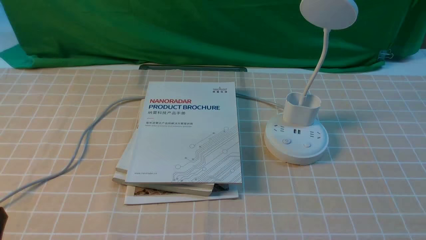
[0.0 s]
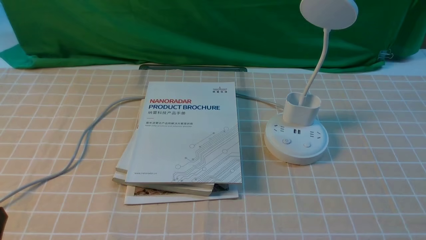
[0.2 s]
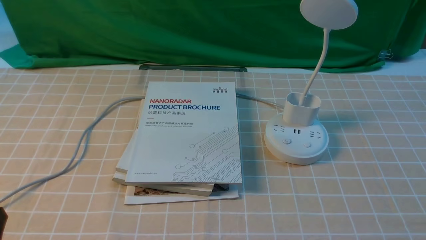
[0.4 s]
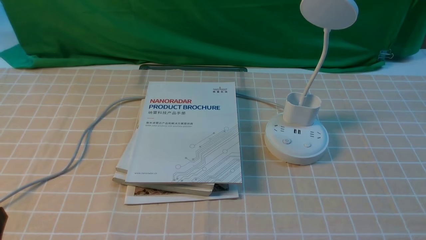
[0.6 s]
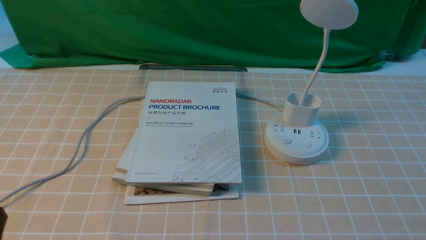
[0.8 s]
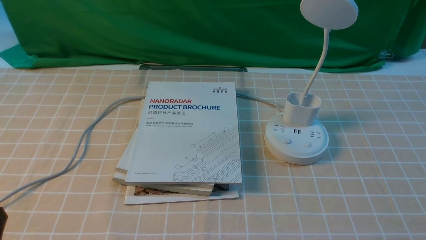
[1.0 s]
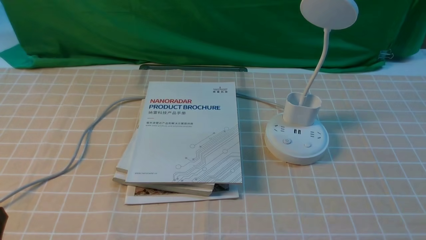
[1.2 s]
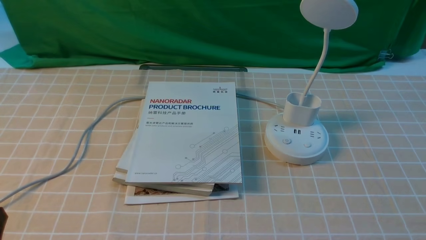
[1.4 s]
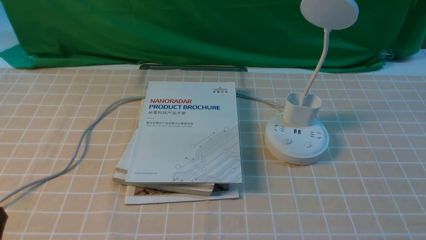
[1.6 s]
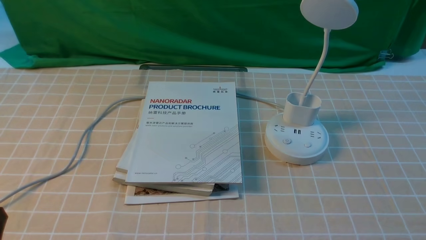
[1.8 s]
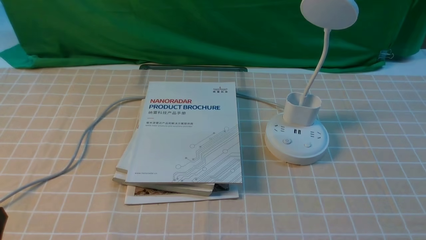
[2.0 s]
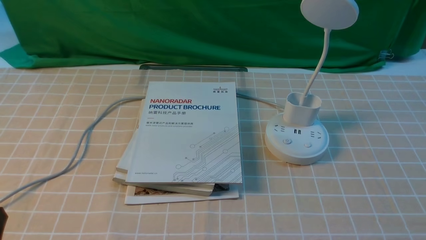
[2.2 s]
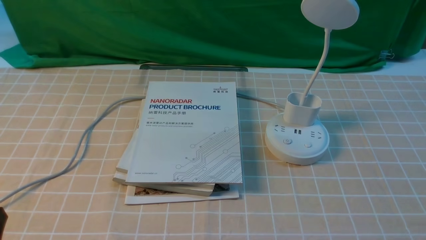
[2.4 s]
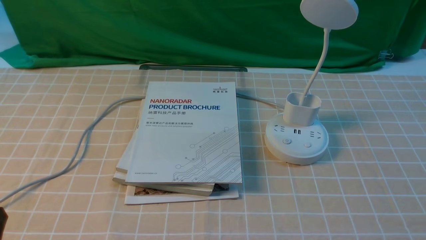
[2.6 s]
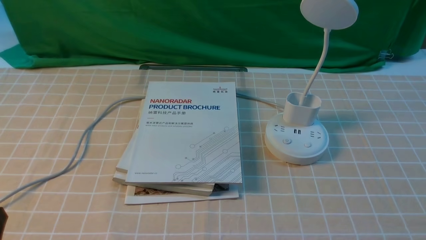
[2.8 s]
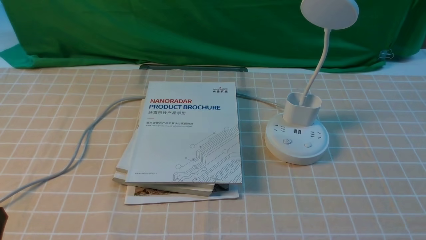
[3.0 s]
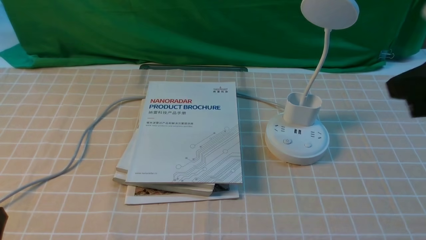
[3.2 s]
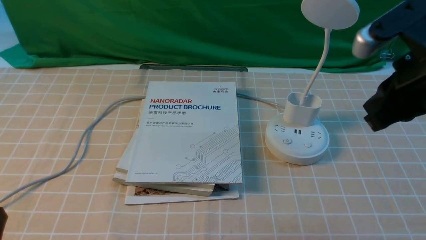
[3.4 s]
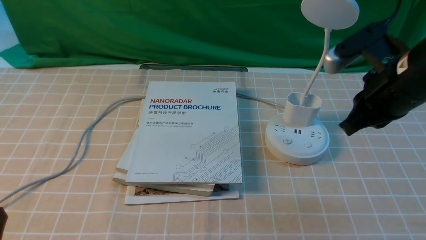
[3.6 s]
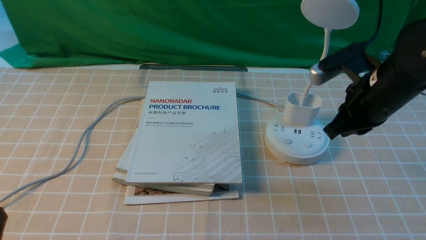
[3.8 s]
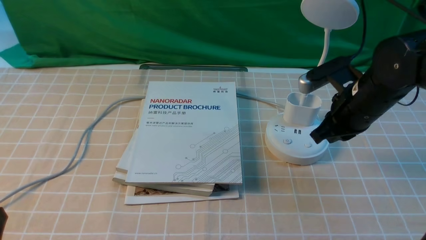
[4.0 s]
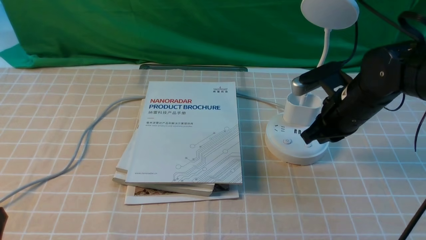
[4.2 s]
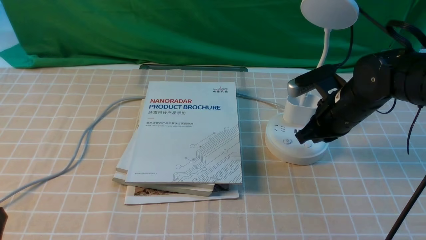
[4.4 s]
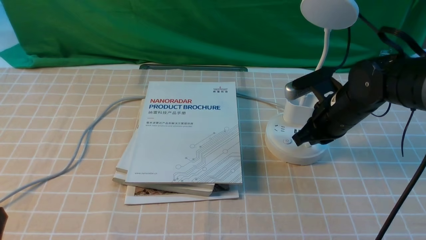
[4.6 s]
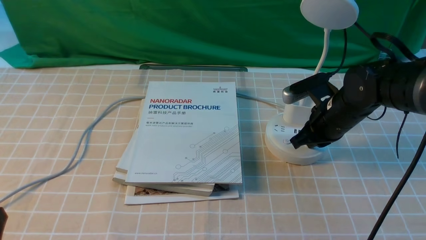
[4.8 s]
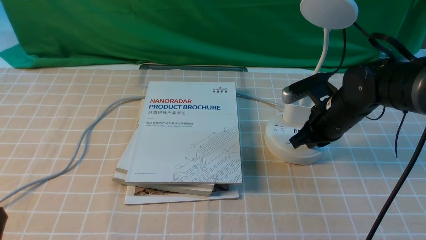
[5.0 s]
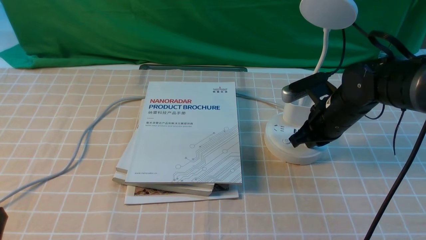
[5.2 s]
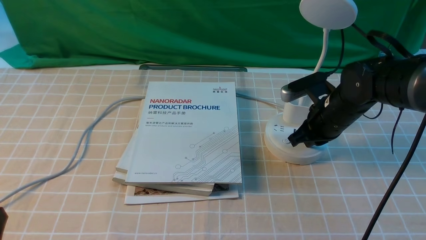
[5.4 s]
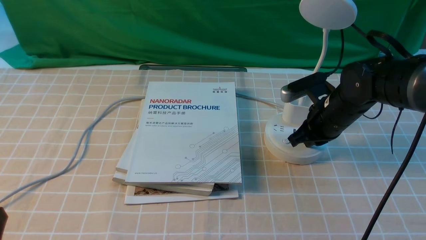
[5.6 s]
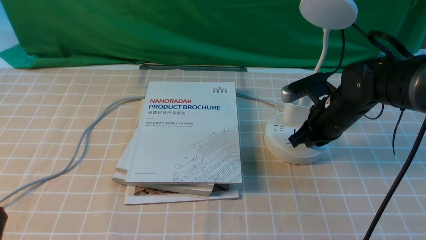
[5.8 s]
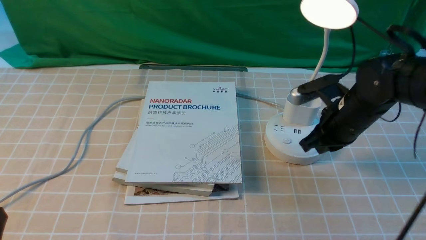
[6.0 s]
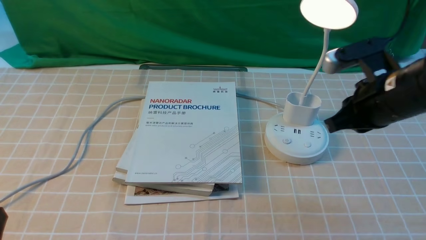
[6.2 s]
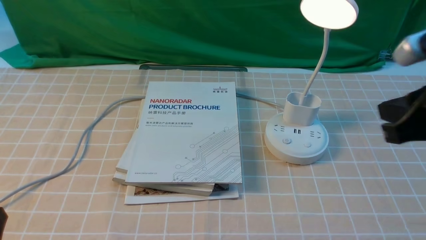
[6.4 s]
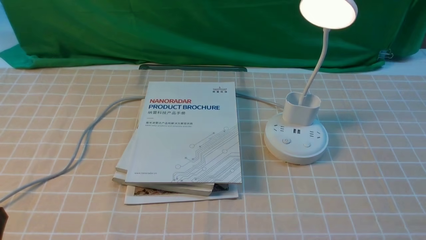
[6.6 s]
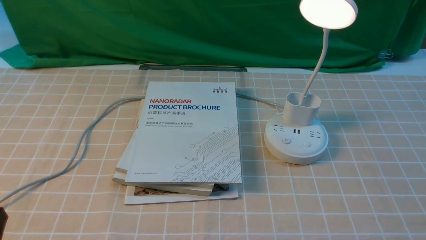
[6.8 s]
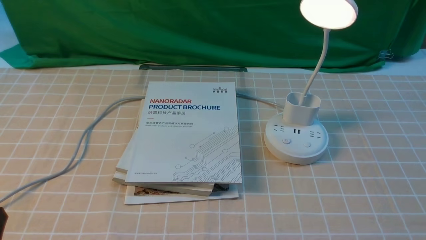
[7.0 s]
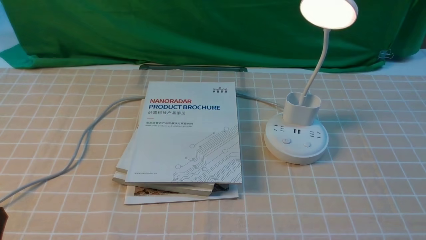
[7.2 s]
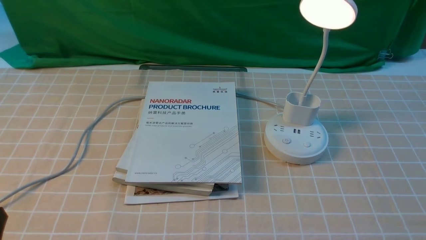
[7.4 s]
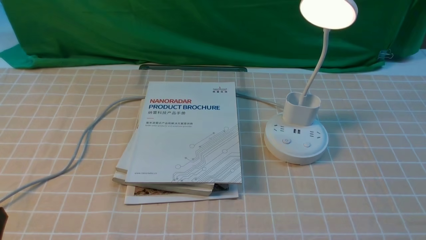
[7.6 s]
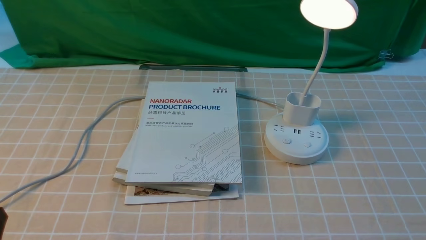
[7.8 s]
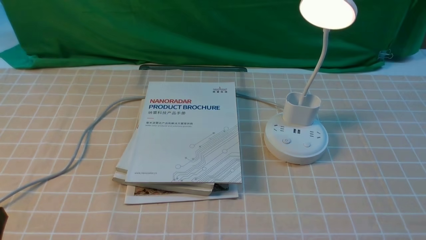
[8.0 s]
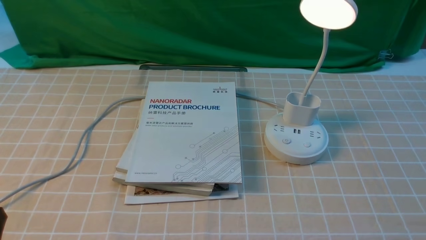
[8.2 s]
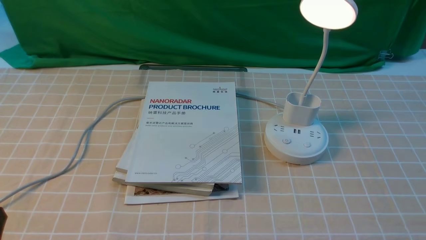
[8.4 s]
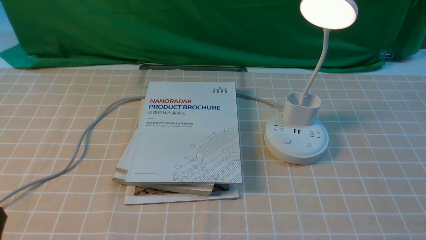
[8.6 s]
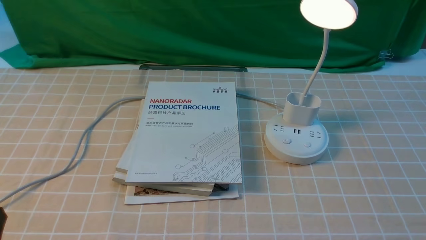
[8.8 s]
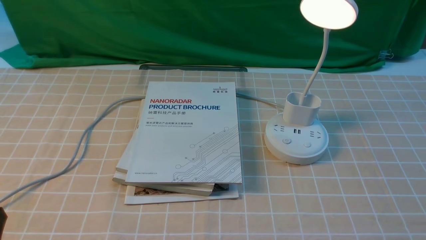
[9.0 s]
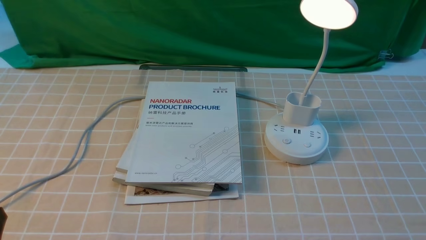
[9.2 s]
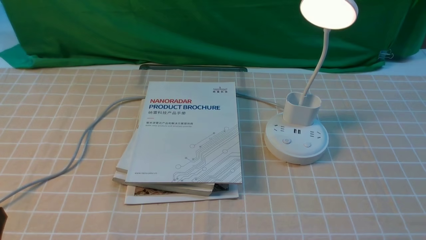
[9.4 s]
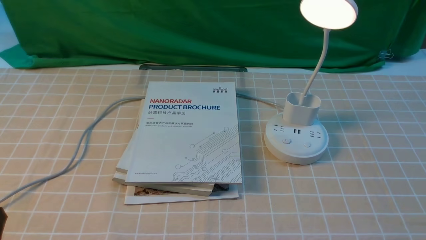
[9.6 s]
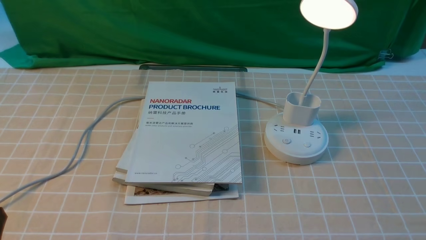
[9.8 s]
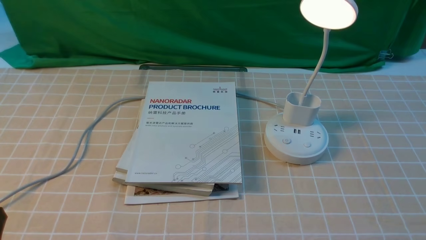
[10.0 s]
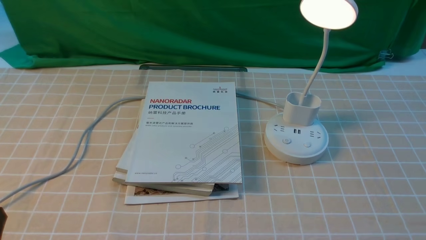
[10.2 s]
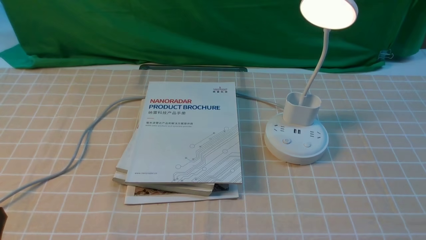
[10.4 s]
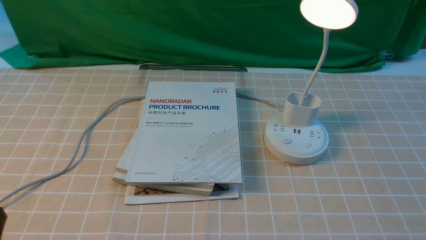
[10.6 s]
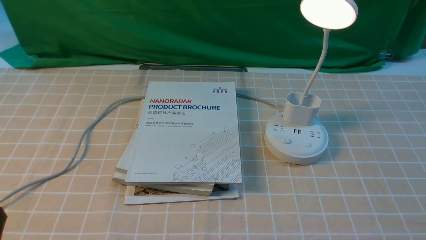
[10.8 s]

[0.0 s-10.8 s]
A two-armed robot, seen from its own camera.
Step, 0.0 to 6.0 s: use the right arm to press the button switch on the lamp holder.
3.0 to 4.6 s: The right gripper travels downward, forward and to the left by roughly 30 cm.
4.6 to 6.2 s: The right gripper heads upward and backward, covering some 15 cm.
6.2 to 7.8 s: The right gripper heads backward, to the right and downward, covering about 25 cm, and opens its fingers.
9.2 to 10.8 s: The two grippers keep their place.
